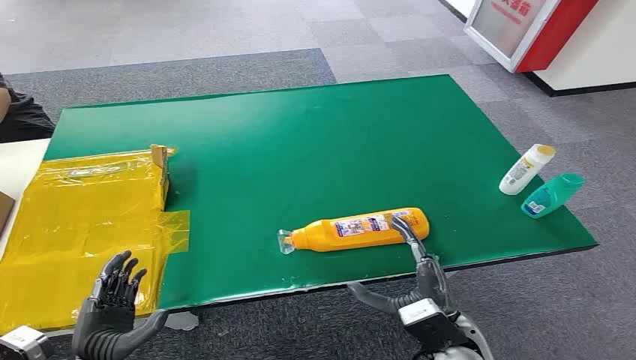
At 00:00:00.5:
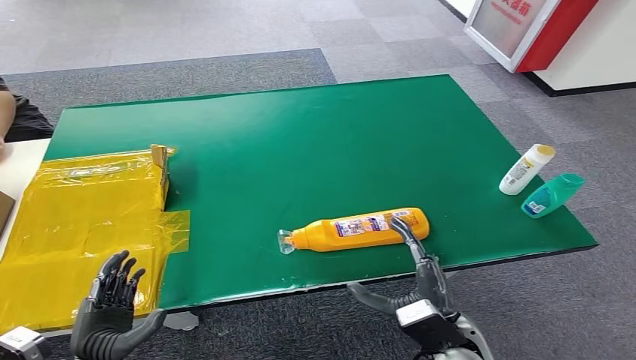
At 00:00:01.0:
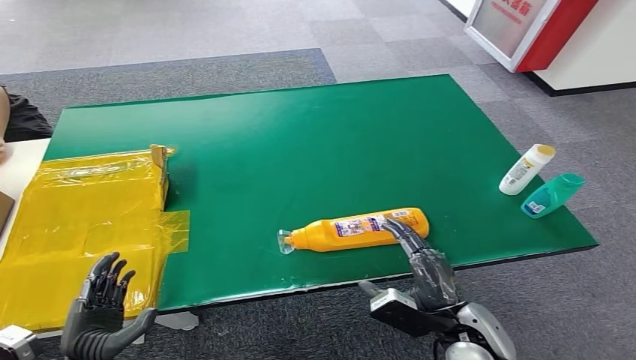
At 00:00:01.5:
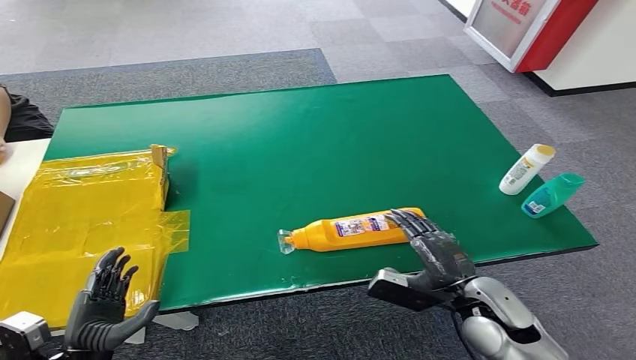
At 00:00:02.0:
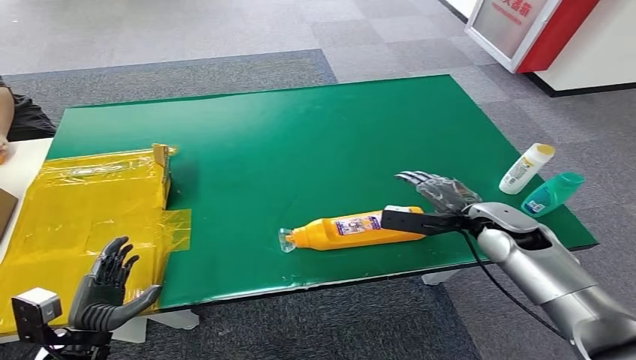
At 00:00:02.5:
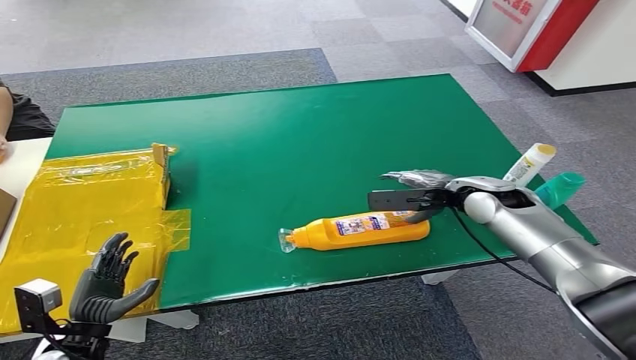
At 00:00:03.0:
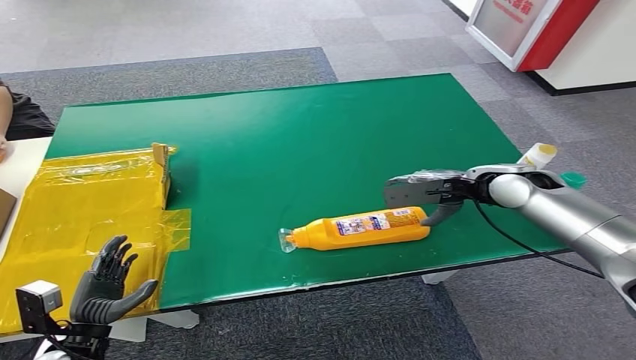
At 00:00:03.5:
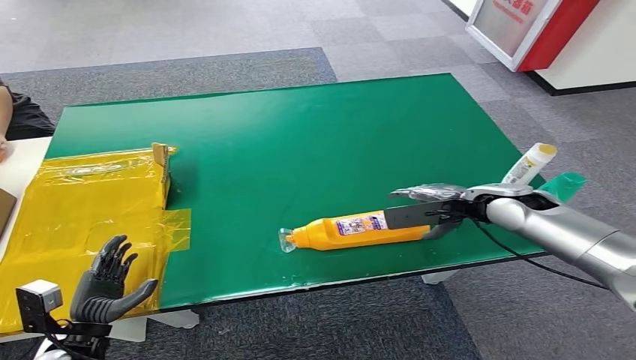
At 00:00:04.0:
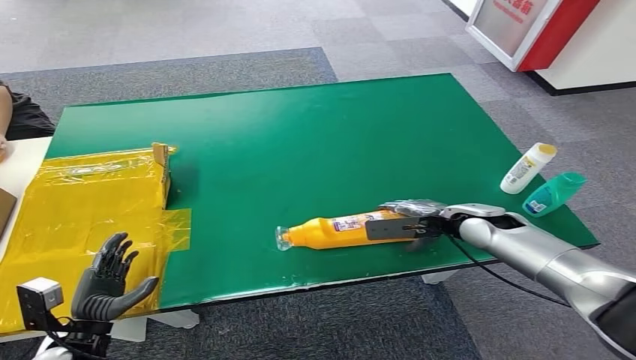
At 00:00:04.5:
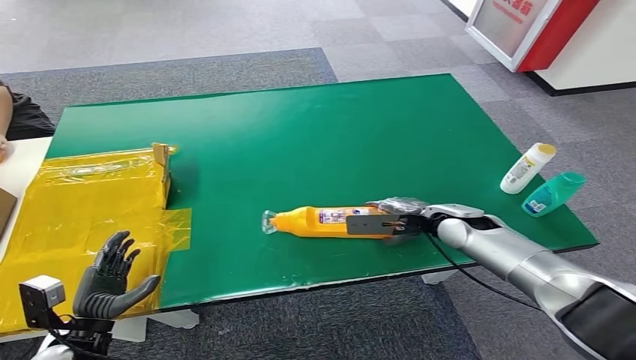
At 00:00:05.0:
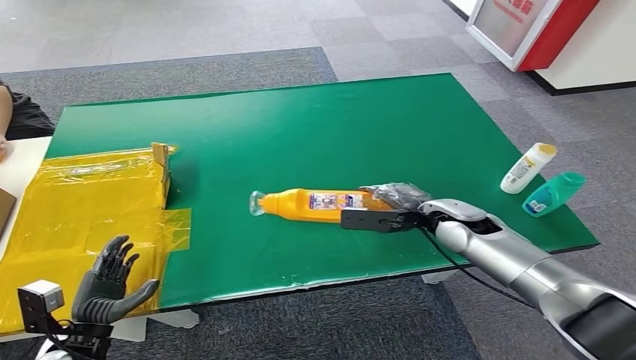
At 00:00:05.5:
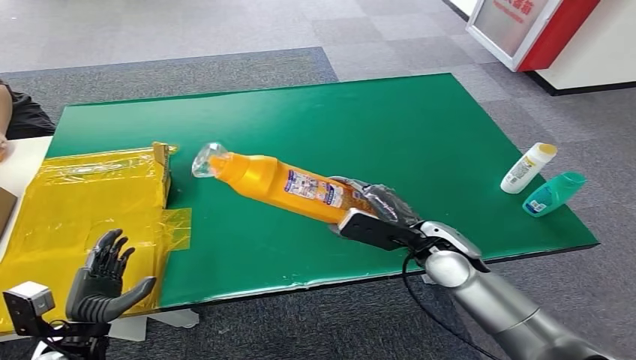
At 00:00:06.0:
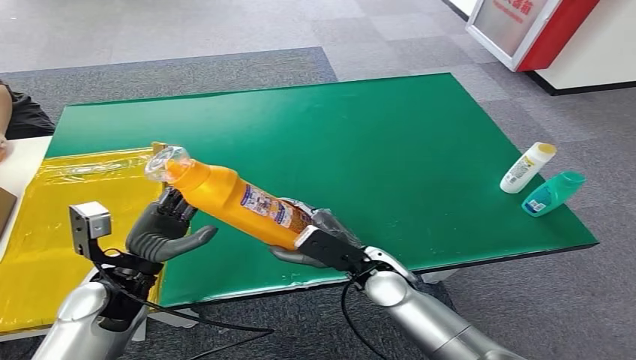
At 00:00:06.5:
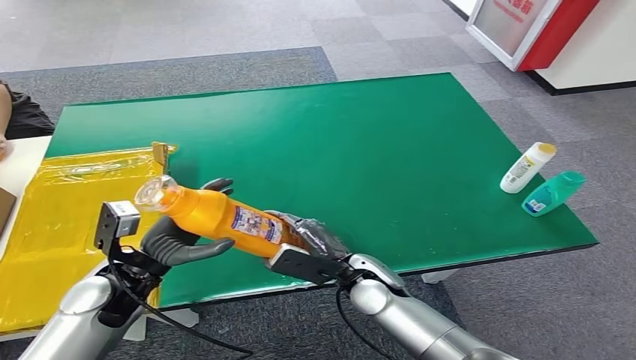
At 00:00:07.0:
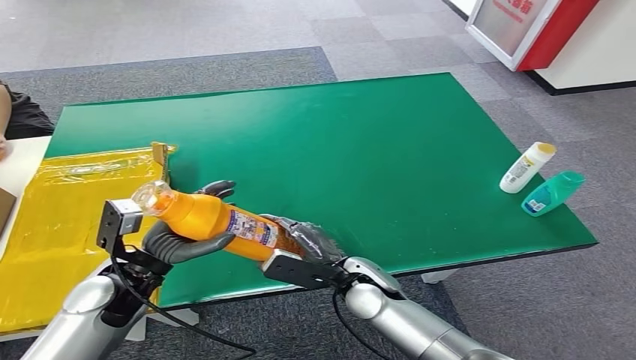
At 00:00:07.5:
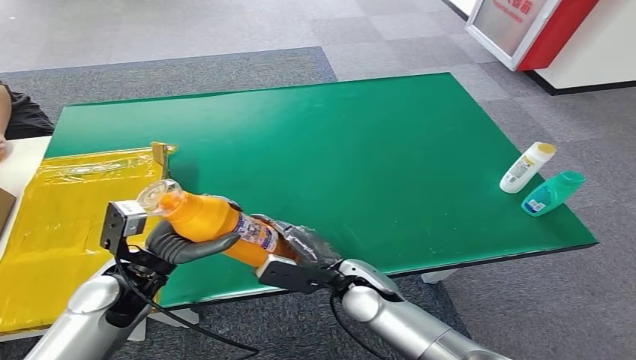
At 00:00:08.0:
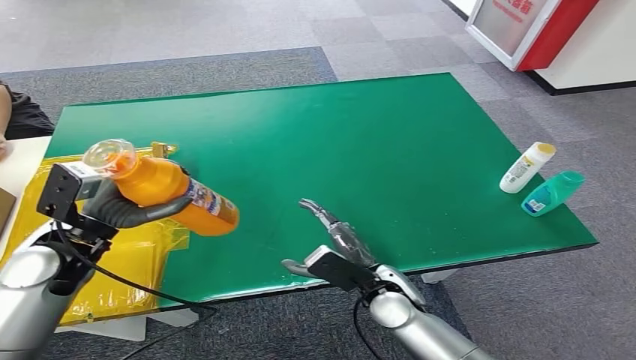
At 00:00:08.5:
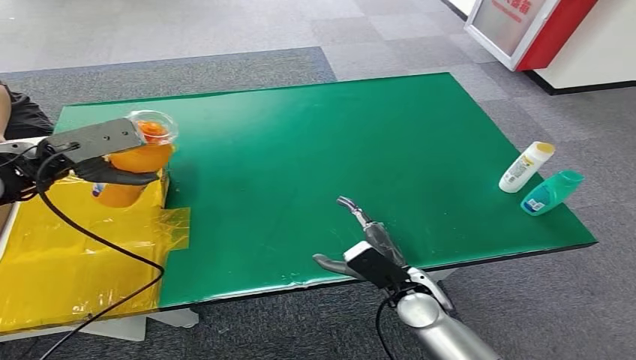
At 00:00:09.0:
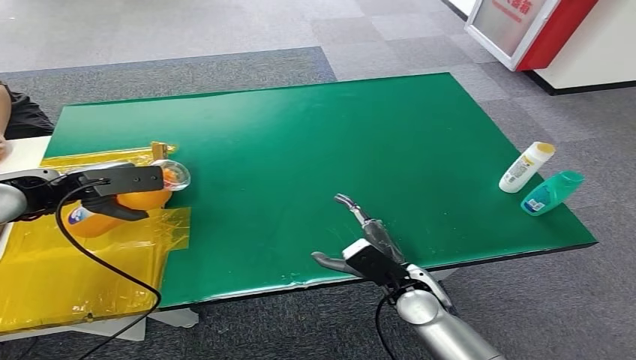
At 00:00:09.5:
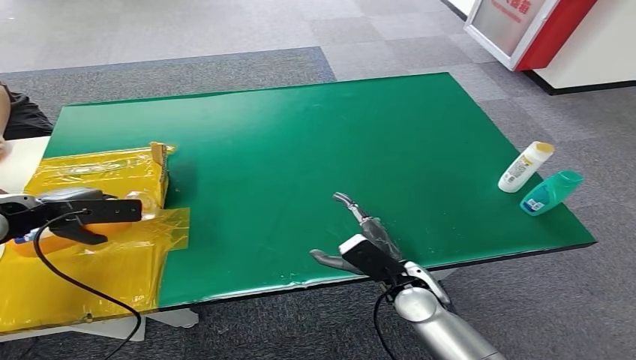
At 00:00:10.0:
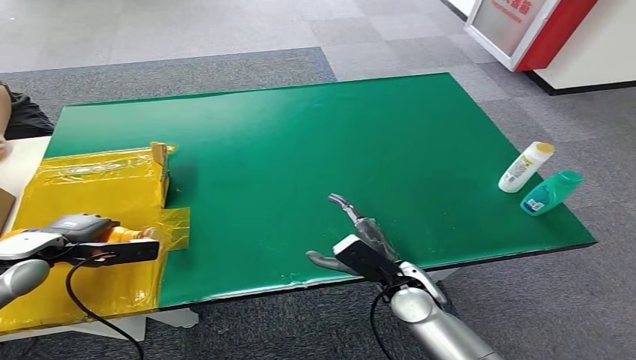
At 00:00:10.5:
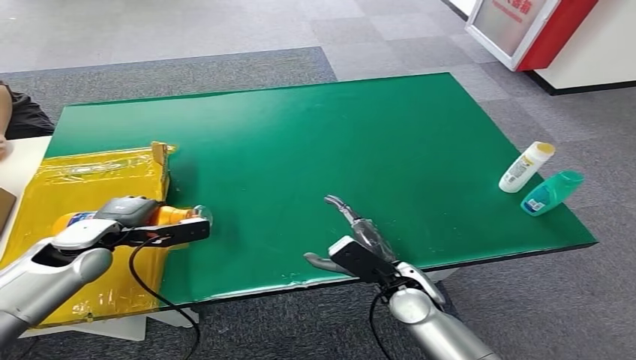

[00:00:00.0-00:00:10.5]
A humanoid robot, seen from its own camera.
Step, 00:00:00.0 to 00:00:05.5: Pick up the bottle from the table.
Step, 00:00:06.0 to 00:00:10.5: Turn the bottle to the front side.
00:00:02.0 to 00:00:04.0: The right hand moves some 5 cm upward and comes back.
00:00:06.5 to 00:00:08.5: The right hand heads to the right, covering some 5 cm; the left hand is displaced upward, forward and to the left by approximately 25 cm.
00:00:08.5 to 00:00:10.5: The left hand is displaced downward by roughly 20 cm.
